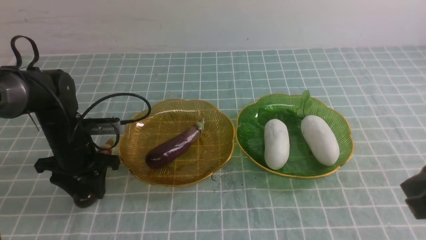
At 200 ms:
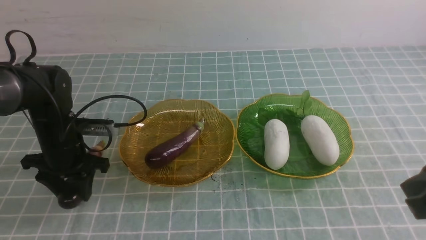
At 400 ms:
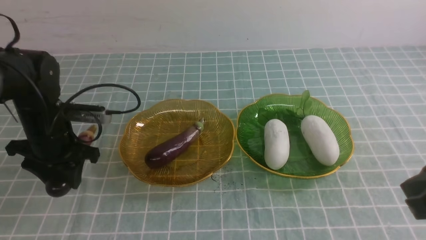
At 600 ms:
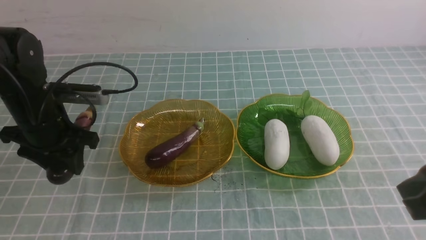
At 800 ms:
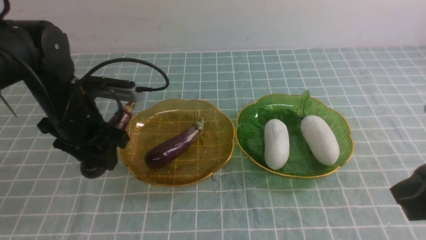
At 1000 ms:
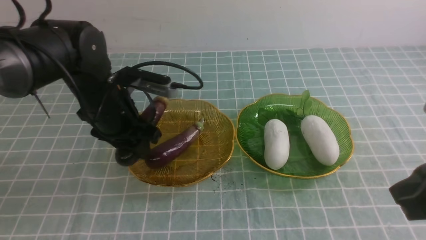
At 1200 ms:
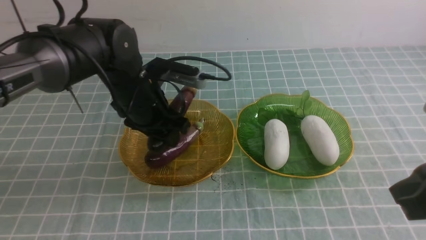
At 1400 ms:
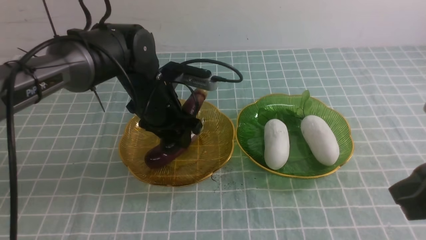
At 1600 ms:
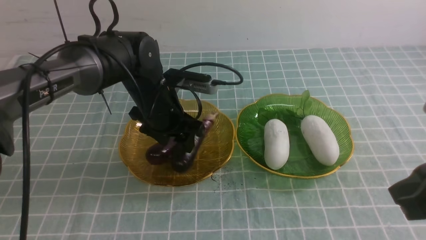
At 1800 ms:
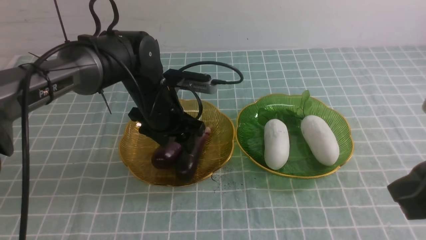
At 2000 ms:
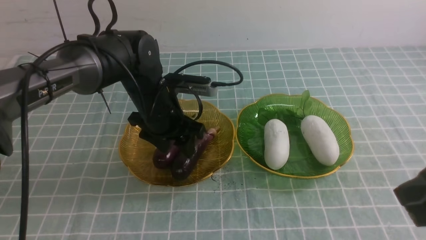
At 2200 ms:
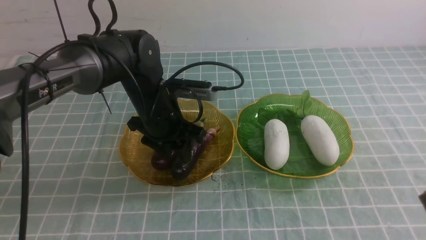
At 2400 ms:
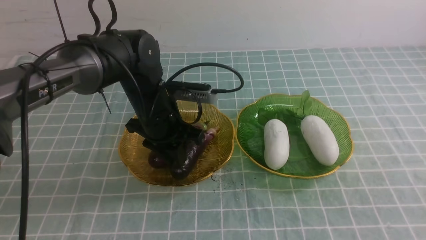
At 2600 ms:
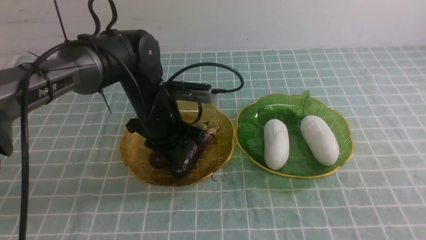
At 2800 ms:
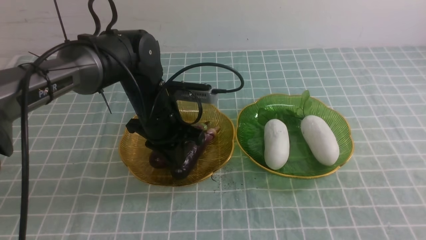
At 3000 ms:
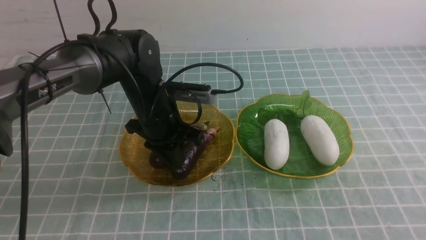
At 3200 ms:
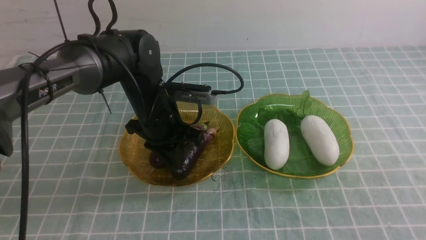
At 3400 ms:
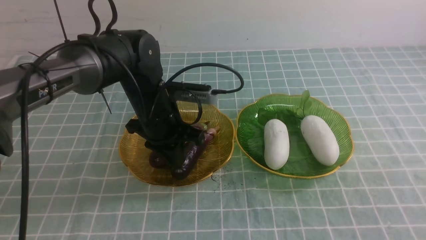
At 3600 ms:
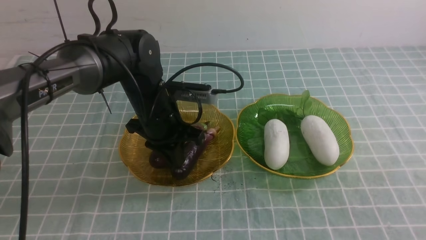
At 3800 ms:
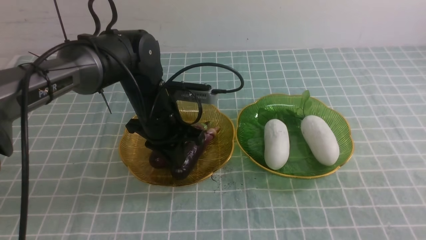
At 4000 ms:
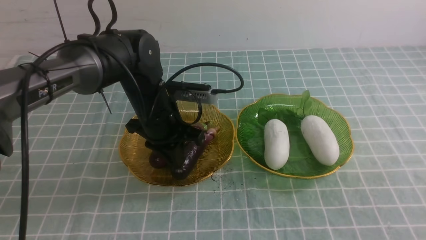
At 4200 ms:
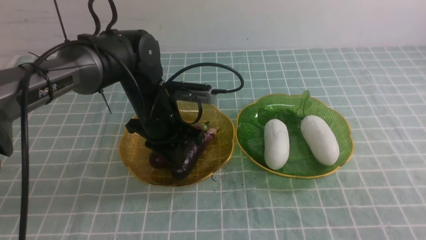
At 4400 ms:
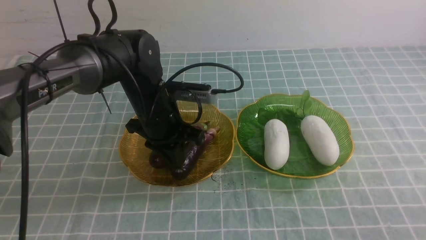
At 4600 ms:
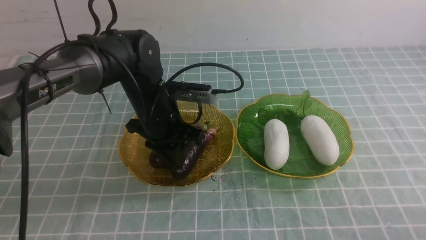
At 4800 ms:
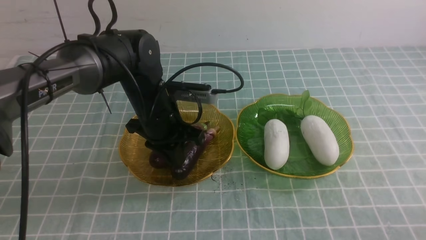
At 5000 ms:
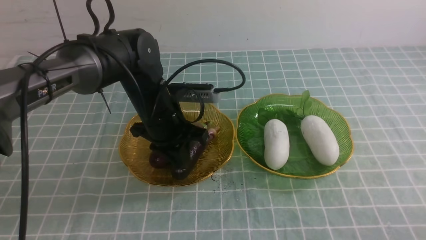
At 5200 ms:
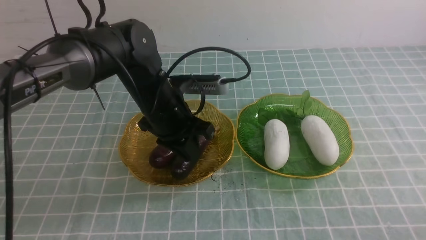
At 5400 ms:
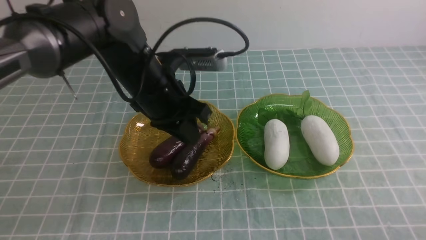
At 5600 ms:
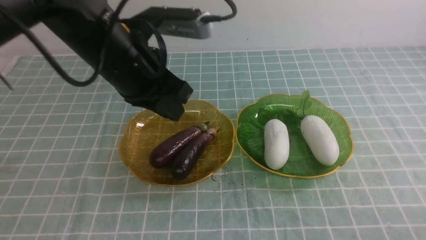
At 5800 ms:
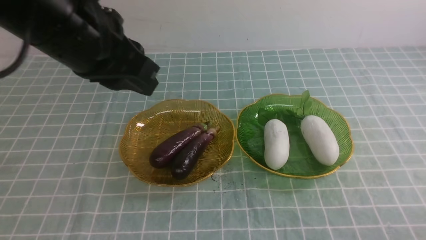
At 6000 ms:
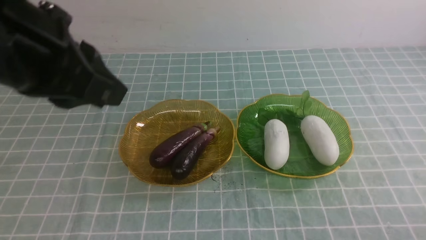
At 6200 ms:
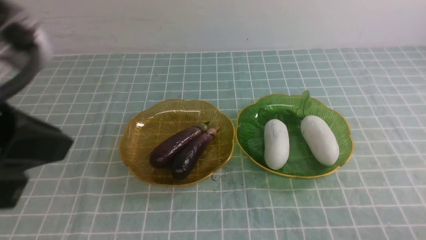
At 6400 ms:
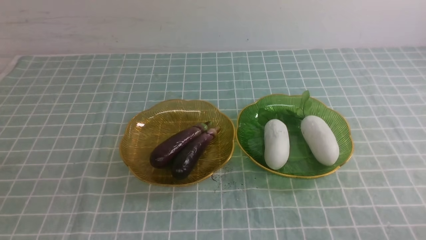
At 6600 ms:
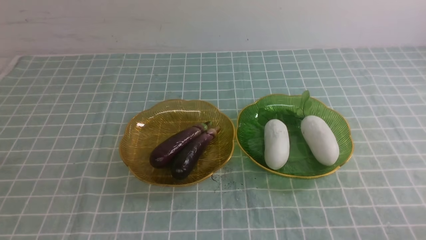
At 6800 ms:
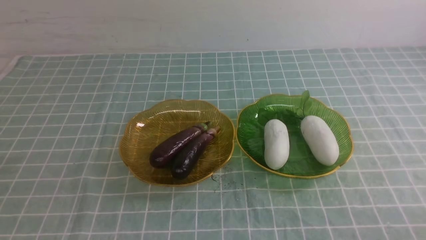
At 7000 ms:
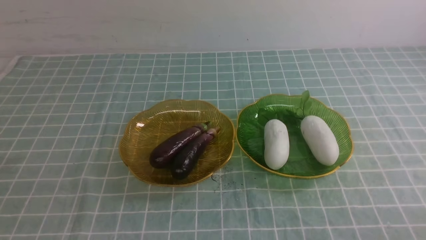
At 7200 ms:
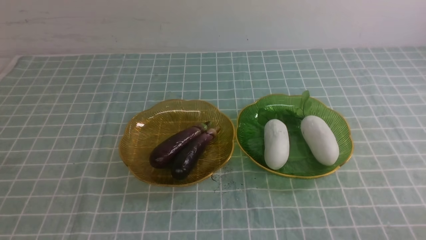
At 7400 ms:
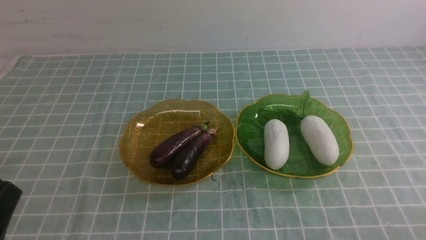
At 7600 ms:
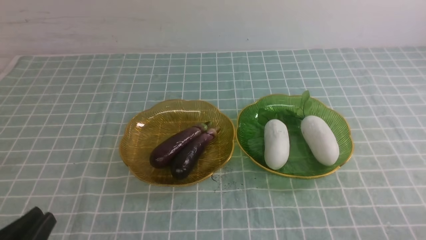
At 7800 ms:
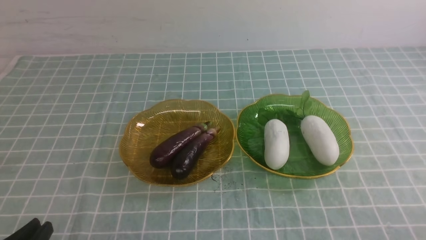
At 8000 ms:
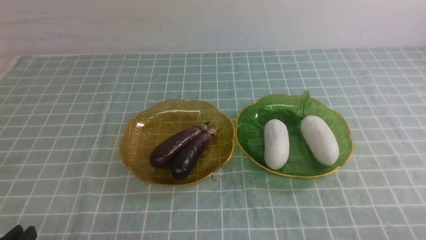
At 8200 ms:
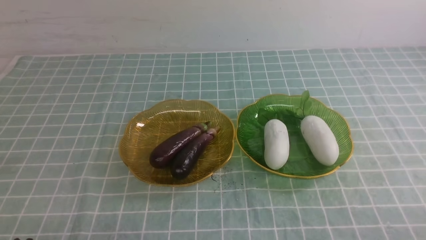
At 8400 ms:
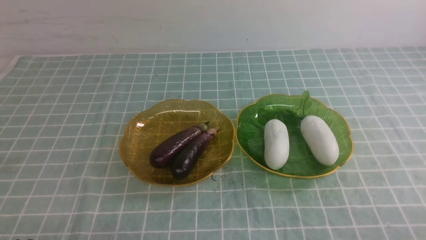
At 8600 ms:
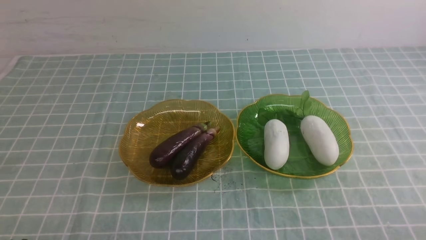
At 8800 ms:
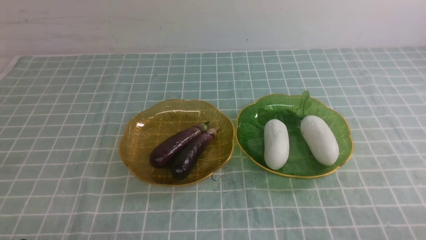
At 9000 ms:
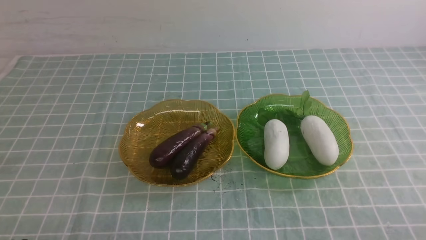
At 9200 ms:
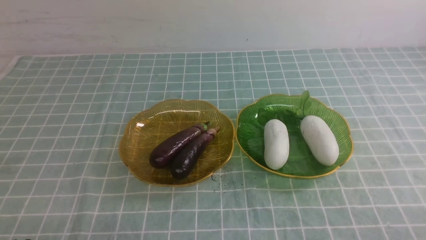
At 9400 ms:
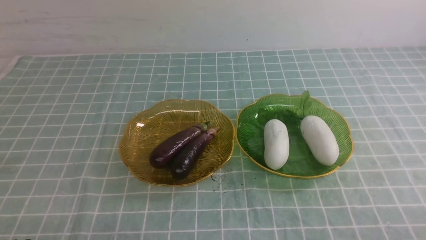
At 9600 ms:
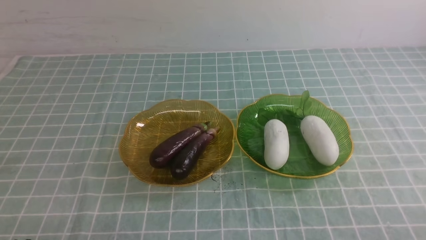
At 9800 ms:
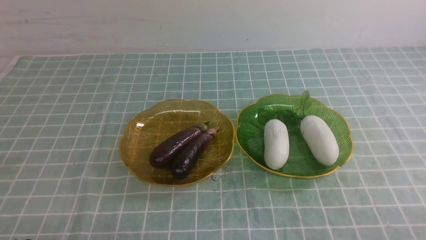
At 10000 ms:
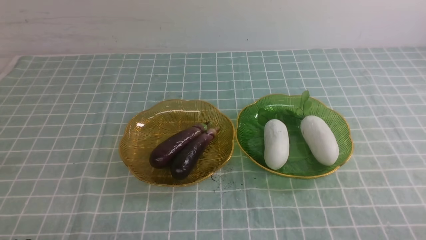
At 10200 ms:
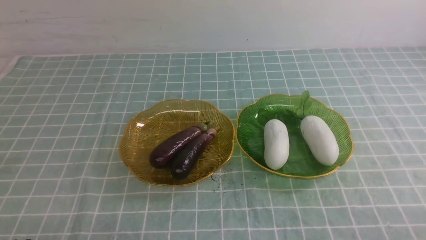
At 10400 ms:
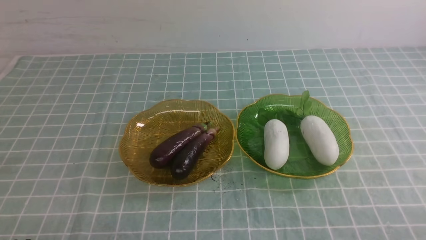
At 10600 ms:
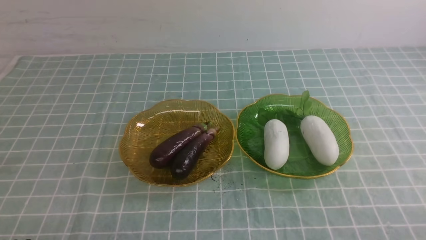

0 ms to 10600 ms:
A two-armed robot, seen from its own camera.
Step, 0 ms to 5400 ms: use the left arm to grab an eggplant and put it into the left plate.
0 ms to 1600 ms: The left gripper shifts about 15 cm to the right and upward.
1600 ms to 3000 ms: The right gripper travels backward by roughly 10 cm, while the left gripper closes its fingers.
4600 ms to 6000 ms: The left gripper shifts about 30 cm upward and backward.
6000 ms to 7600 ms: The left gripper shifts some 25 cm downward and backward.
7600 ms to 9000 ms: The left gripper shifts approximately 5 cm downward.
9000 ms to 10600 ms: Neither gripper changes place.
